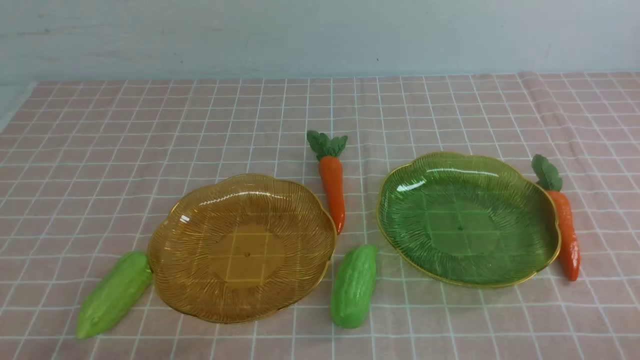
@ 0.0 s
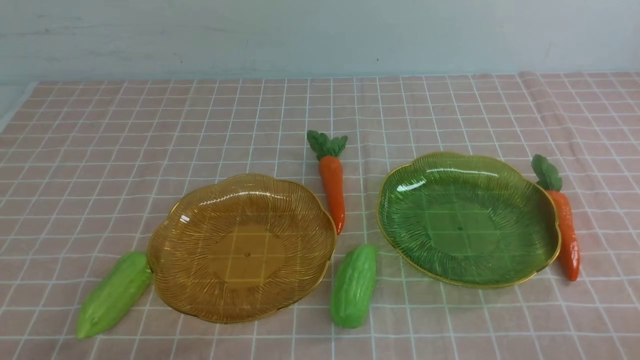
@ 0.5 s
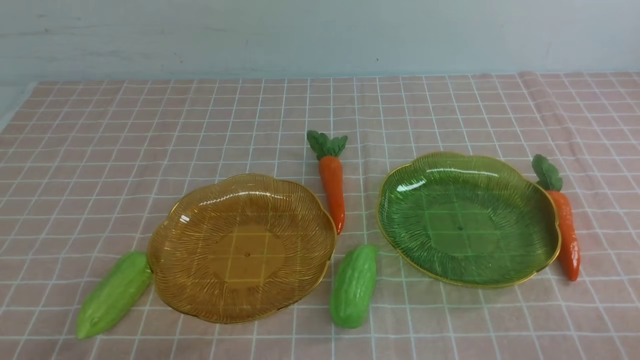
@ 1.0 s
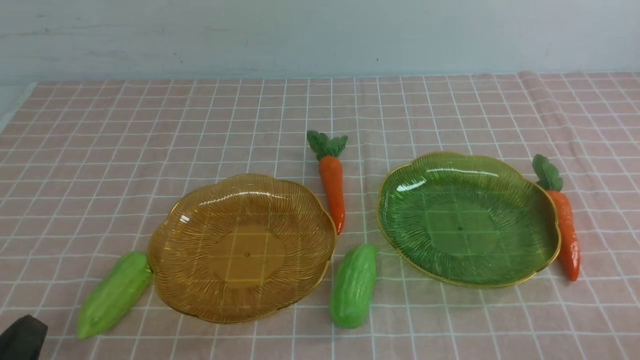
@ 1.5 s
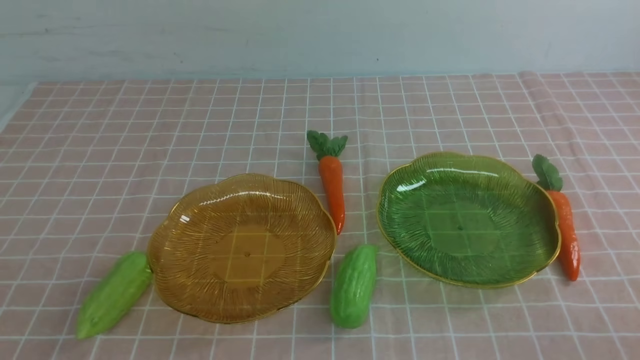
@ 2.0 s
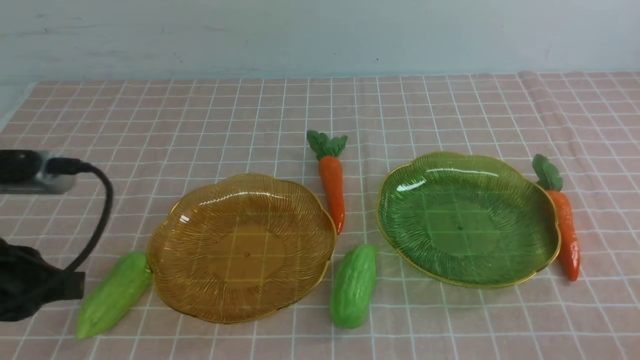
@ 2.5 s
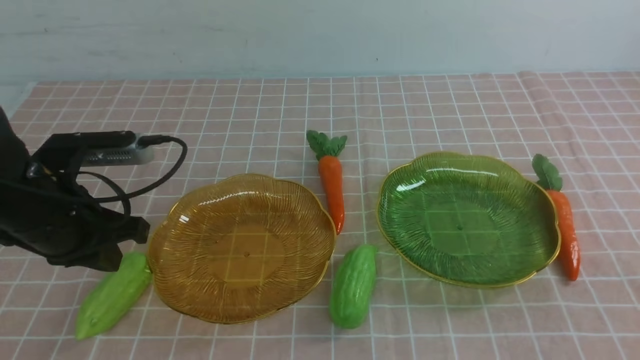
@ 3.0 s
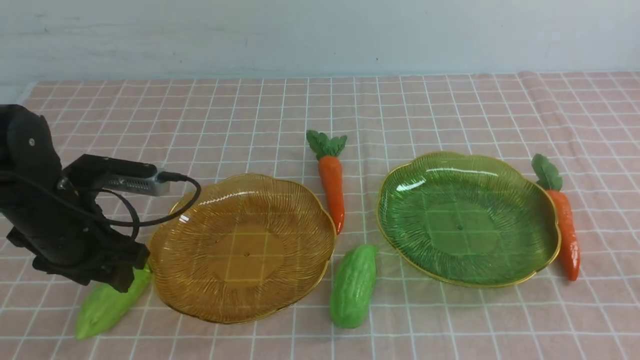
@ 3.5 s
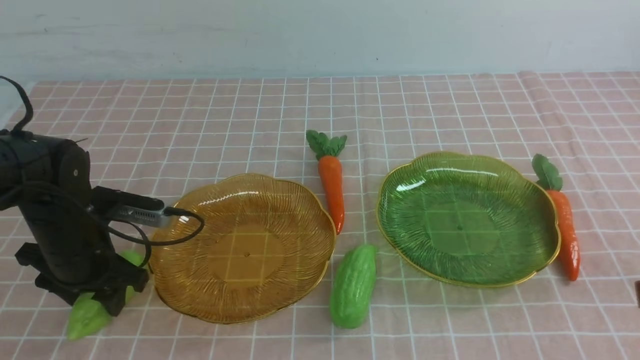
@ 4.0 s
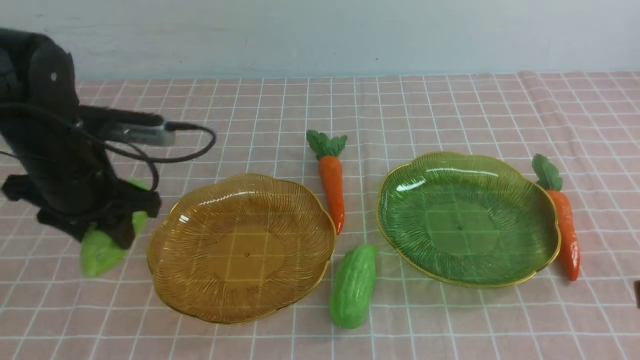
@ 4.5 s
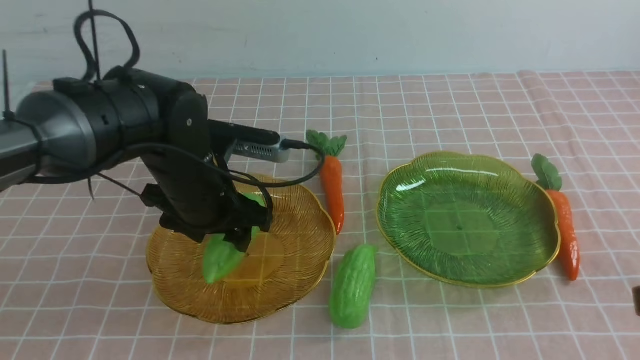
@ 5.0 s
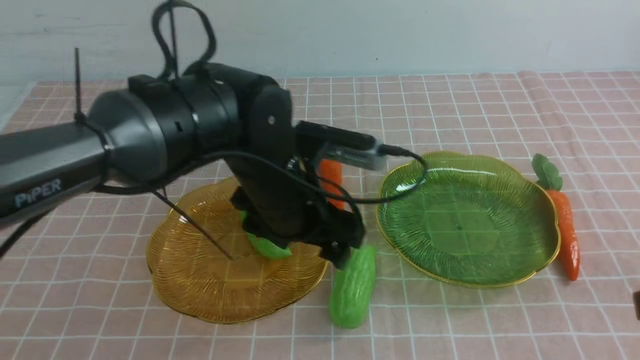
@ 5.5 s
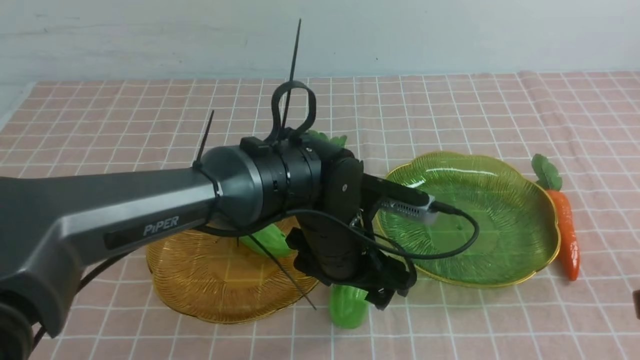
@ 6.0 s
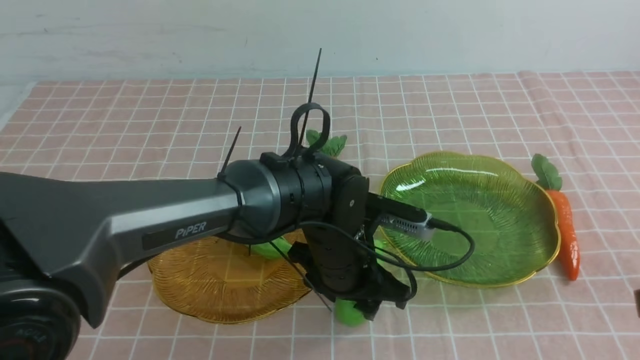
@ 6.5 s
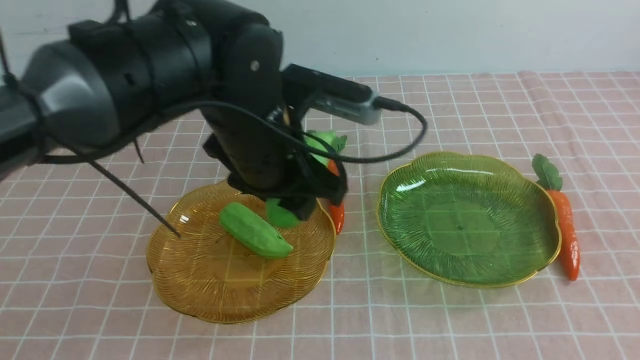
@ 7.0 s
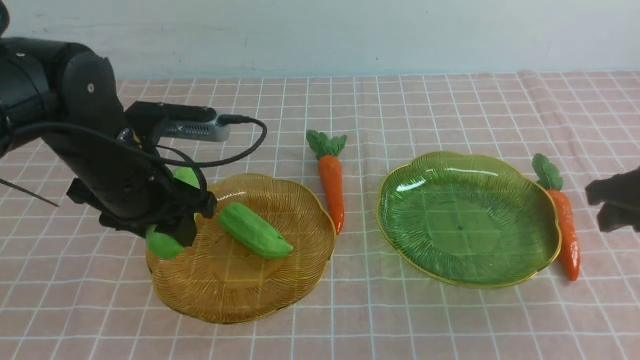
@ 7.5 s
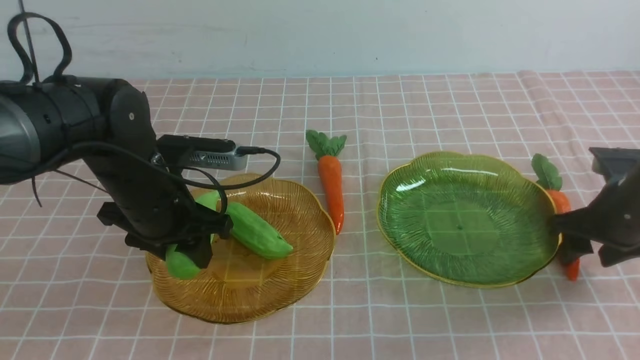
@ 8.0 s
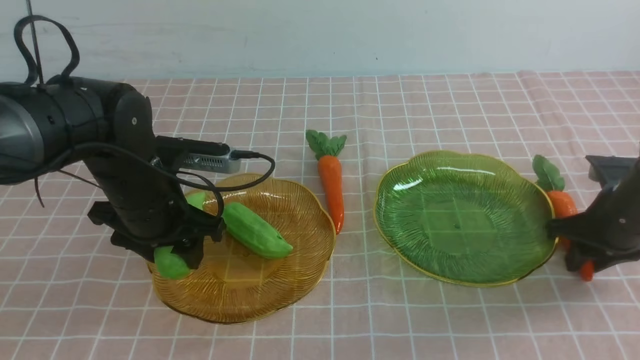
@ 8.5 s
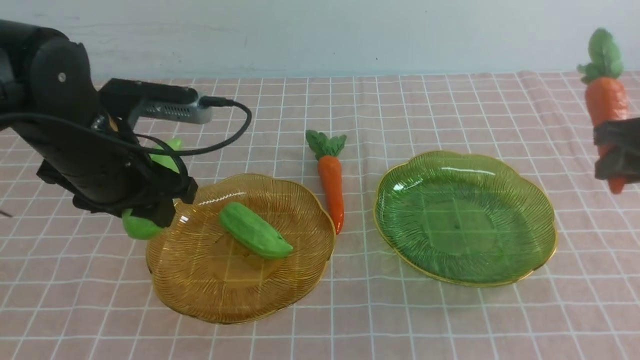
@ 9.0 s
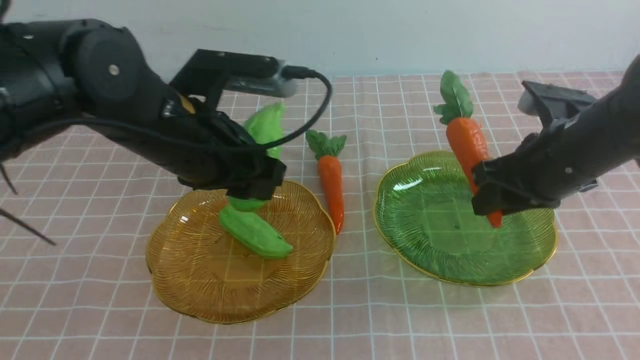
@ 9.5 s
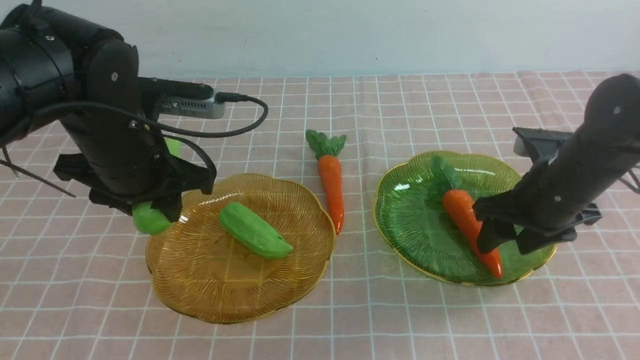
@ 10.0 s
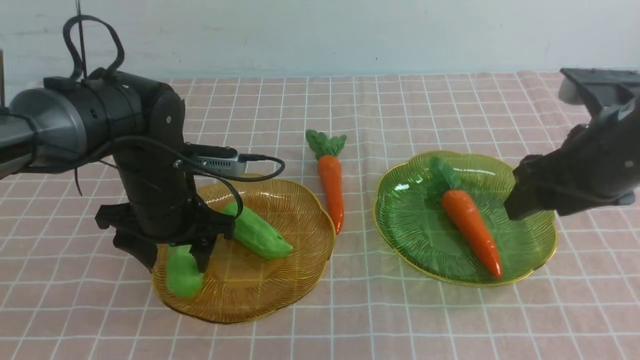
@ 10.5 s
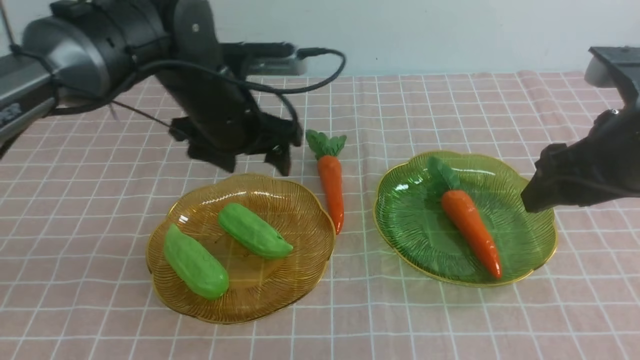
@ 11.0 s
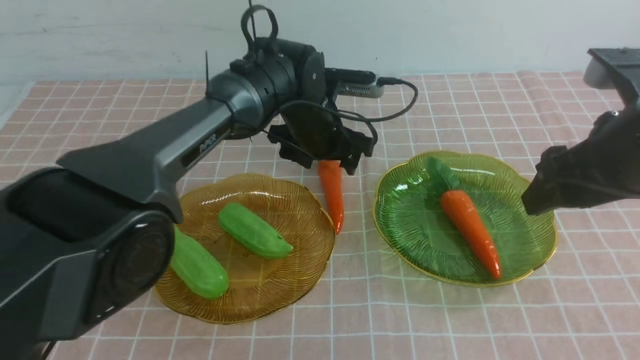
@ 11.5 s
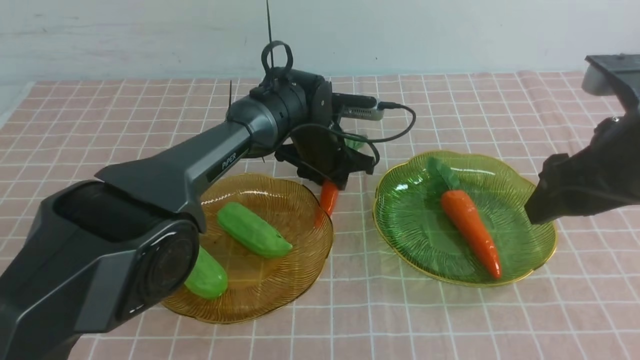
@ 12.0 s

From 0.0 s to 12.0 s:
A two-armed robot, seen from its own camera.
Step, from 0.0 s to 4.5 s: use the left arm to grab a chayote and put it into the left plate.
Step, from 6.0 s to 10.5 s: use the left arm to grab a chayote and put it into the left plate.
From 2.0 s to 4.0 s: The left gripper heads forward, covering some 25 cm, and opens its fingers; the right gripper travels upward and forward by roughly 15 cm.
From 4.0 s to 6.0 s: The left gripper goes approximately 20 cm to the right, and opens, then closes once more.
From 6.0 s to 8.0 s: The right gripper goes about 25 cm forward and downward, and opens its fingers, while the left gripper is displaced to the left by roughly 20 cm.
From 8.0 s to 10.0 s: The left gripper is displaced to the right and forward by roughly 10 cm, and opens its fingers. The right gripper travels to the left, upward and backward by approximately 15 cm, and opens.
From 10.0 s to 12.0 s: The right gripper is displaced backward and upward by approximately 10 cm. Meanwhile the left gripper is displaced to the right by some 15 cm, and closes.

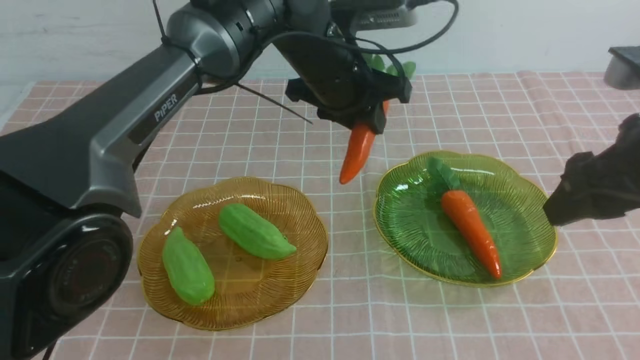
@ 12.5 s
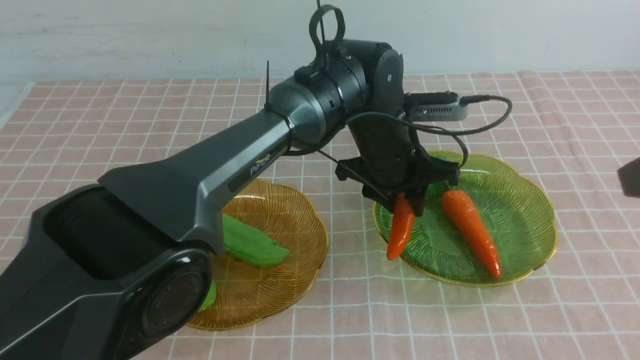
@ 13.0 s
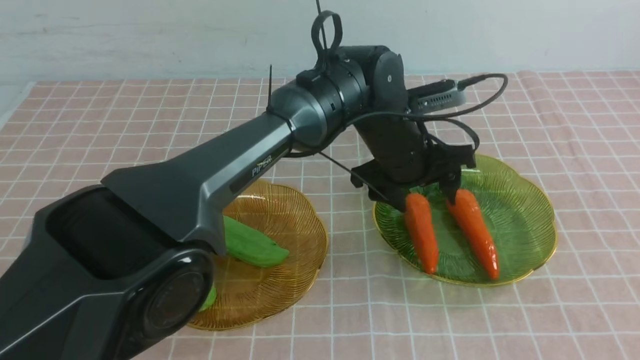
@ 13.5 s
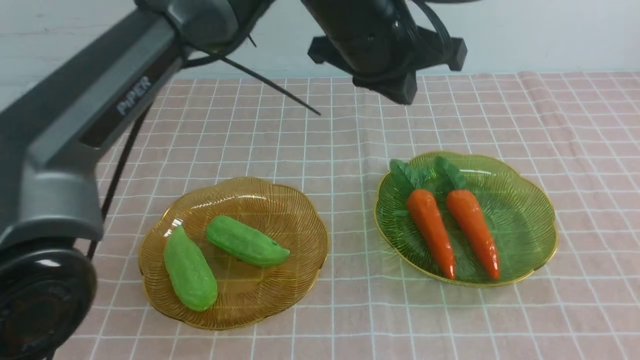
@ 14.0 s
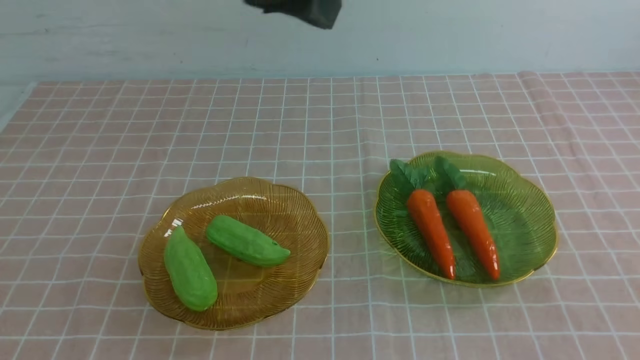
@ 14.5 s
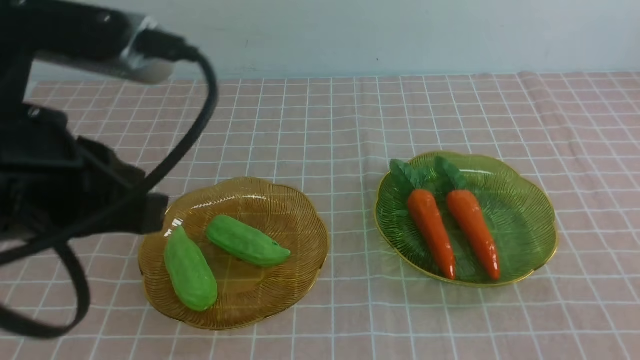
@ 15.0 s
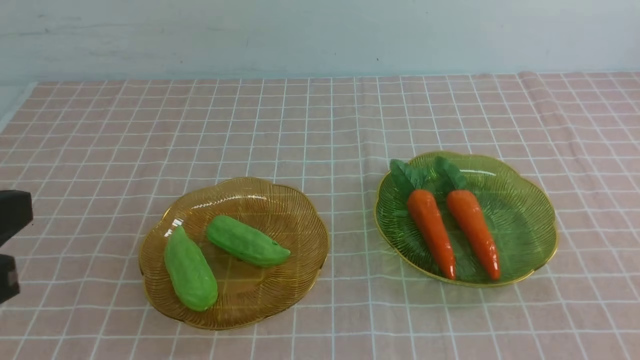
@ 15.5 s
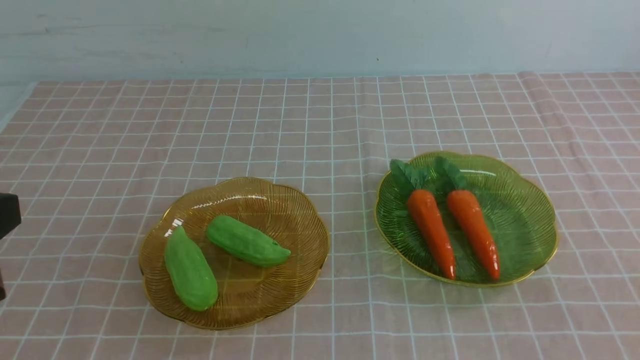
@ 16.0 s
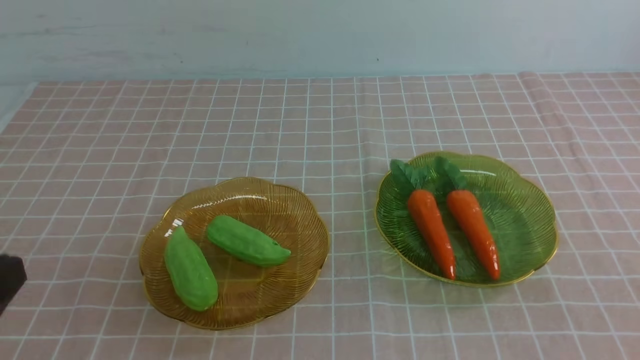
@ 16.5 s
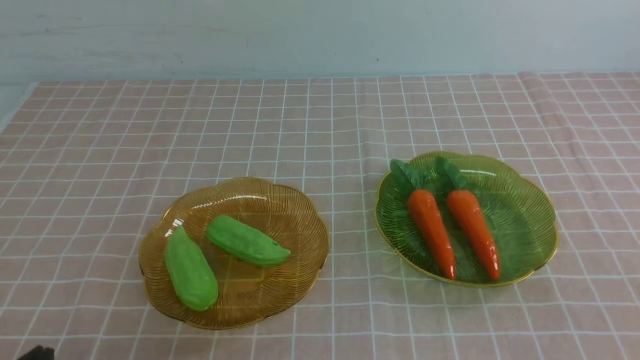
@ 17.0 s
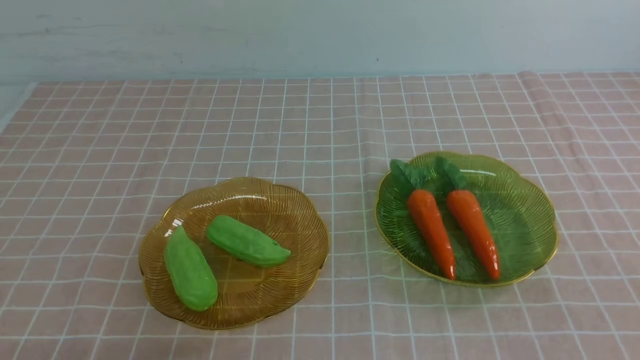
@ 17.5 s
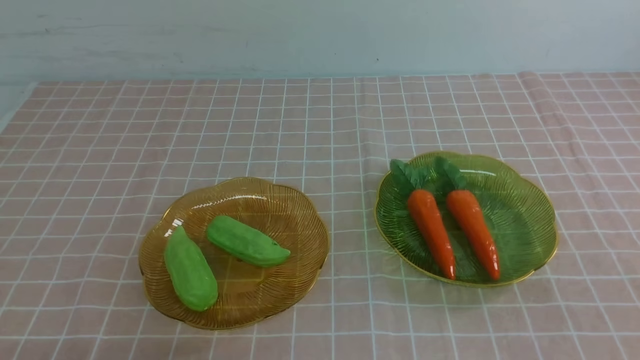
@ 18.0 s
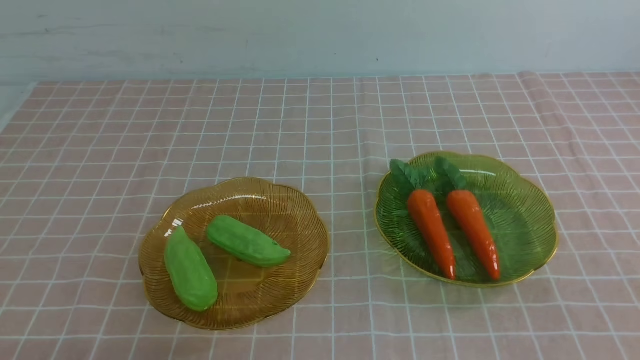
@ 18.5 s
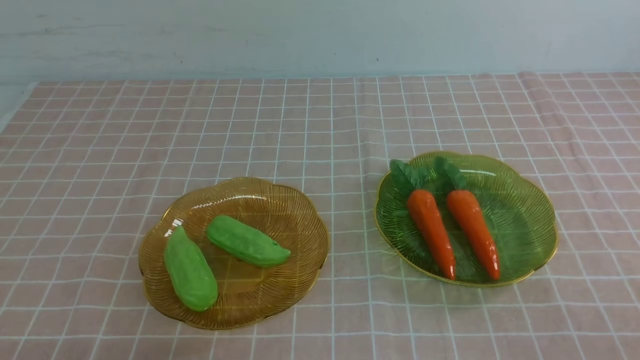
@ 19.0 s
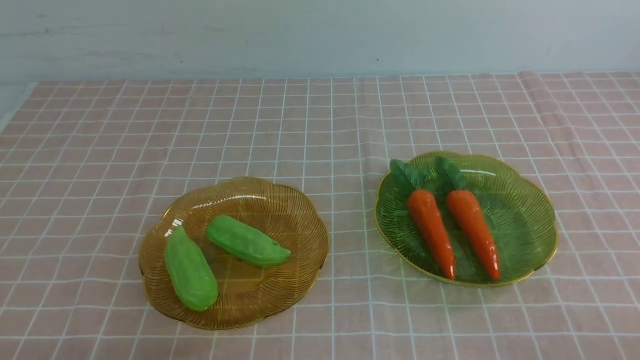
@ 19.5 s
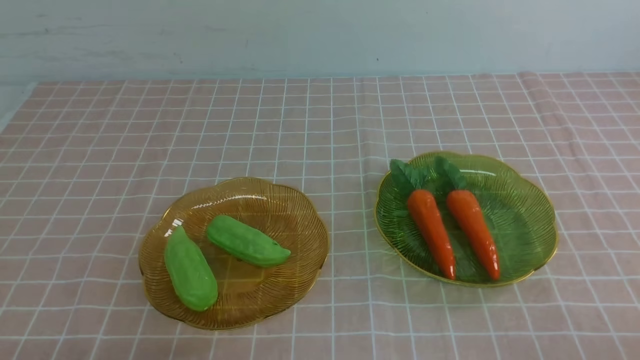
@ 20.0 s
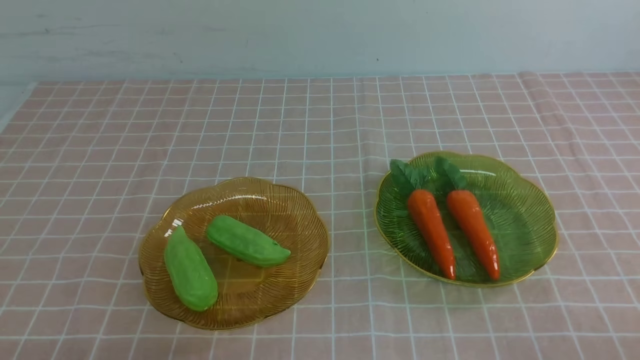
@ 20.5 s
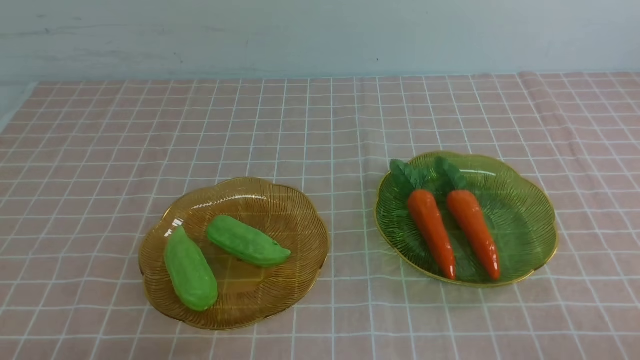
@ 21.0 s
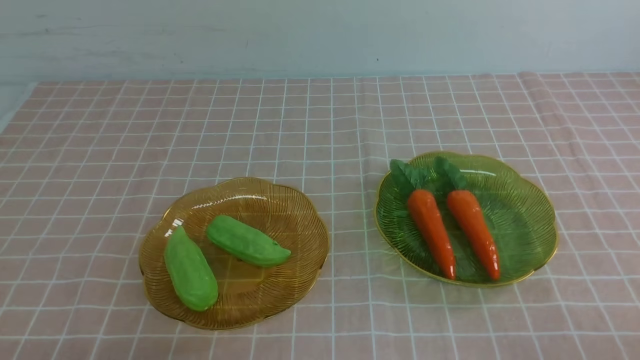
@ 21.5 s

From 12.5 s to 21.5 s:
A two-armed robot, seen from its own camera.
From 12.5 s to 14.5 s: The right gripper goes approximately 20 cm backward, and closes; the left gripper is displaced backward, to the left and upward by about 40 cm, and closes up.
From 14.5 s to 17.0 s: The left gripper is displaced downward, backward and to the left by about 25 cm.
From 19.5 s to 21.5 s: The two grippers keep their place.
